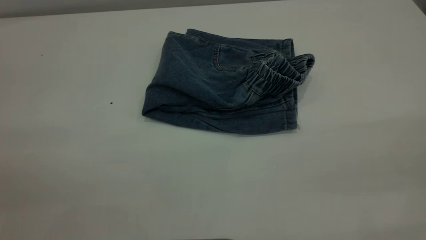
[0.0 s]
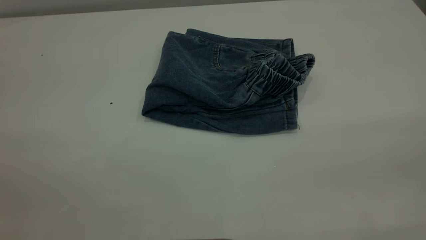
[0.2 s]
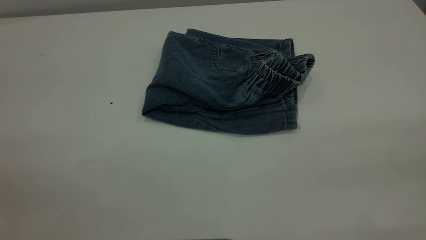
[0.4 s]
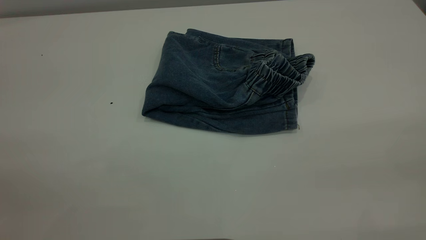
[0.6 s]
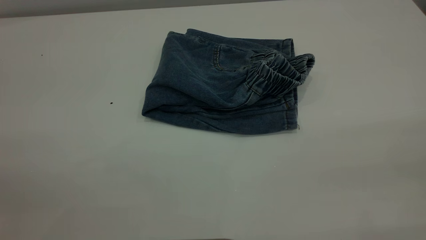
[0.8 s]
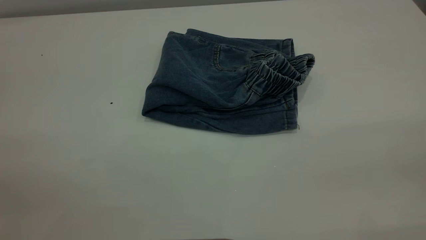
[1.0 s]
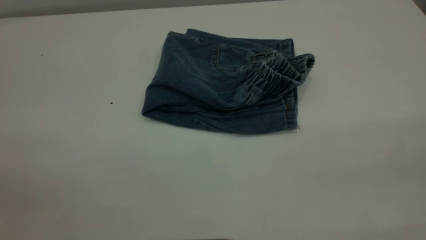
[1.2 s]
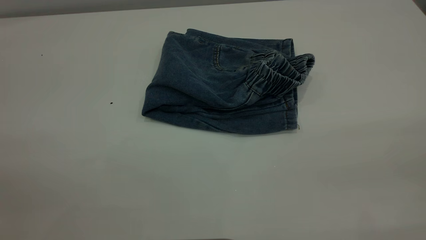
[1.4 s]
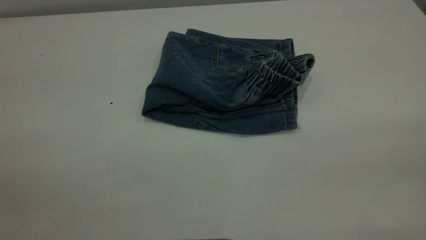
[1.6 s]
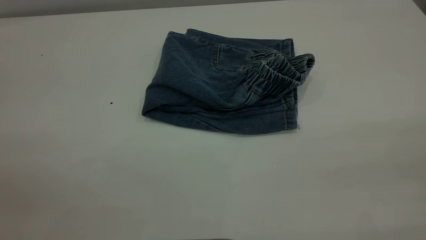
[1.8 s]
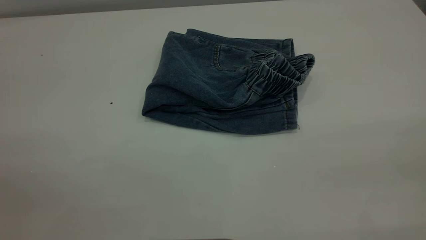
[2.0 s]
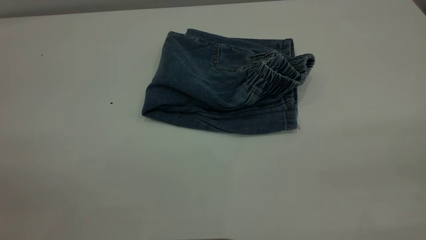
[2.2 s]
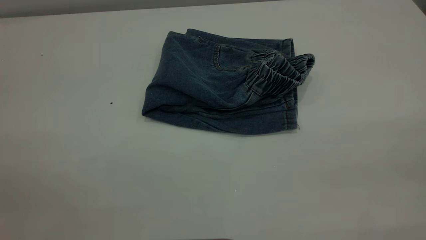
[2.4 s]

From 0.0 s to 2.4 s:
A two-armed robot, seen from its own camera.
From 1.2 s to 2.4 s: Both grippers stay put.
